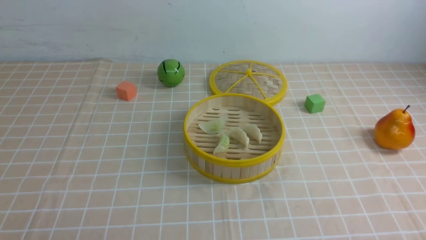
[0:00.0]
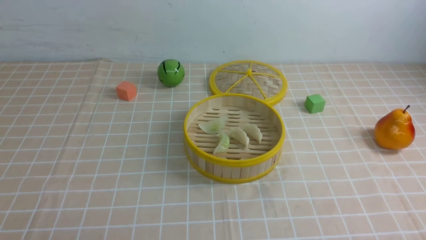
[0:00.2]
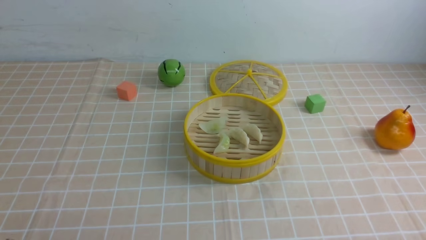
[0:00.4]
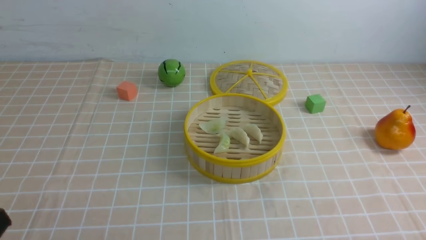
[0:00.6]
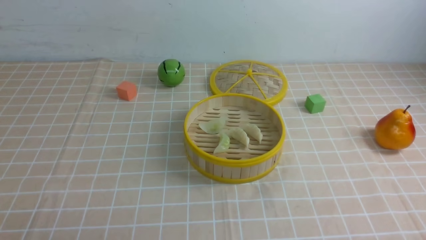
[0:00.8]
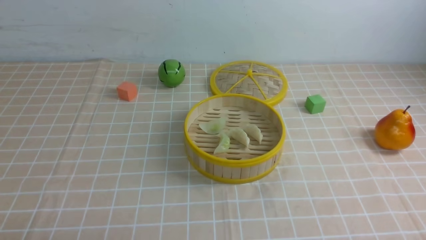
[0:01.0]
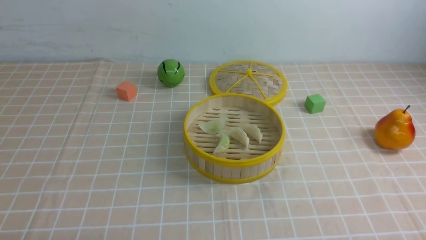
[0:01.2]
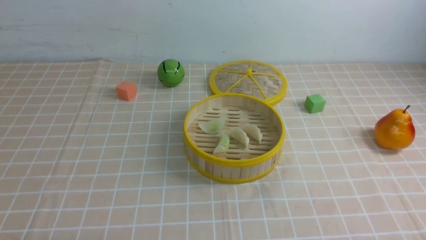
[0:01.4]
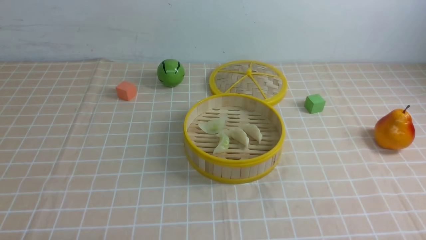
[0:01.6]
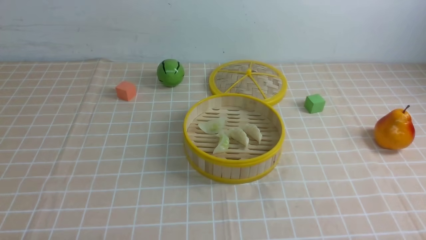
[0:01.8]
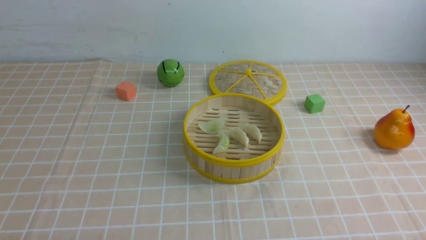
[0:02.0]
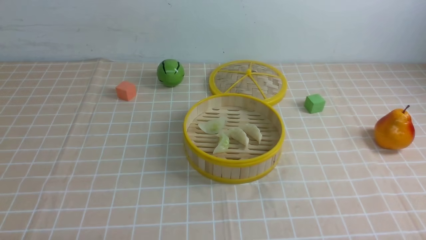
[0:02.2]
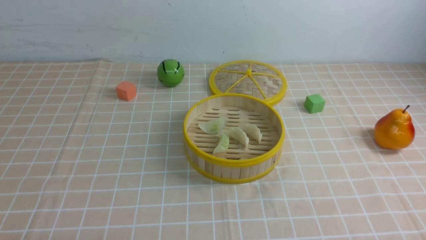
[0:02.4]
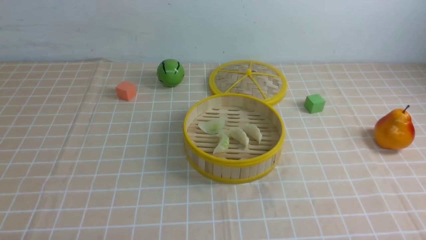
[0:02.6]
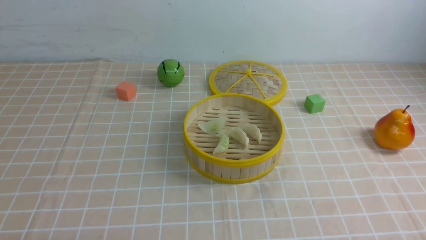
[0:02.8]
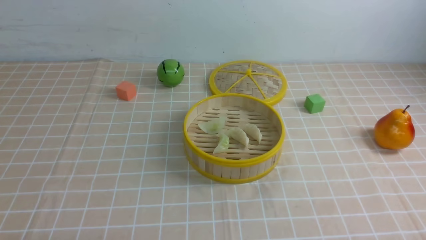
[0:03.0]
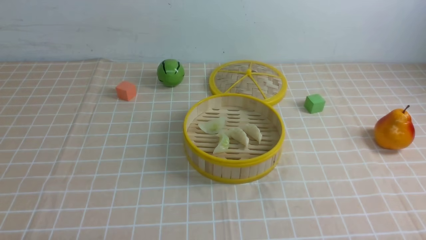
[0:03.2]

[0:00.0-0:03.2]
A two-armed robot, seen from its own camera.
Task of the whole recording: put the dumplings into the steamer on the table with the brown tablecloth.
0:01.6 to 0:03.2: Both grippers stay about where they are.

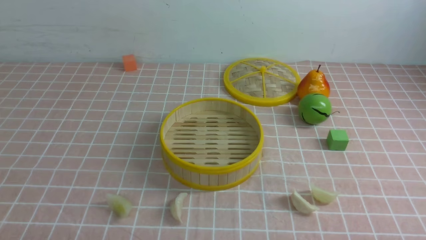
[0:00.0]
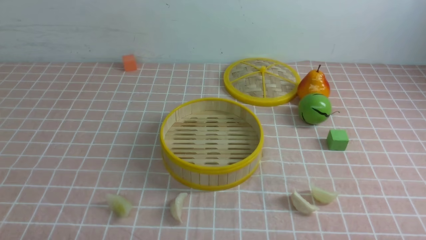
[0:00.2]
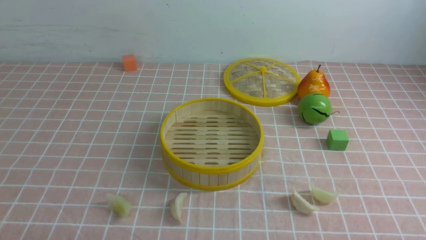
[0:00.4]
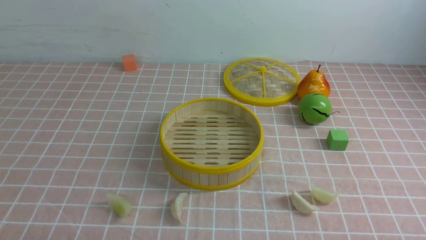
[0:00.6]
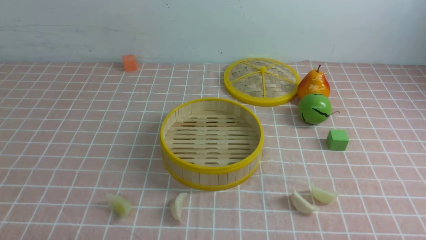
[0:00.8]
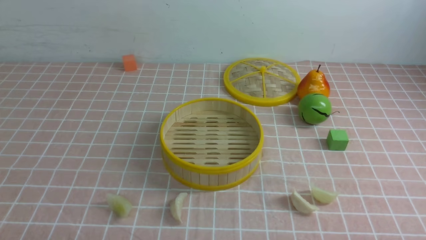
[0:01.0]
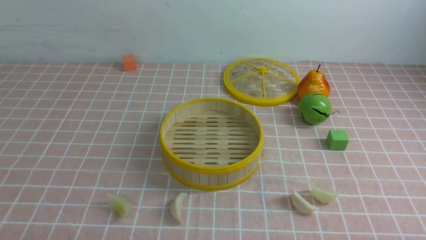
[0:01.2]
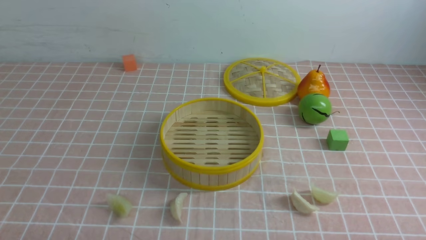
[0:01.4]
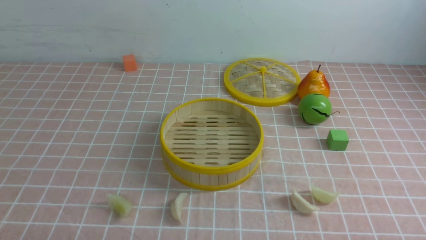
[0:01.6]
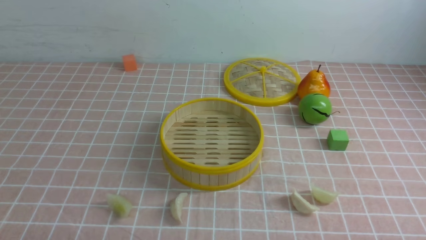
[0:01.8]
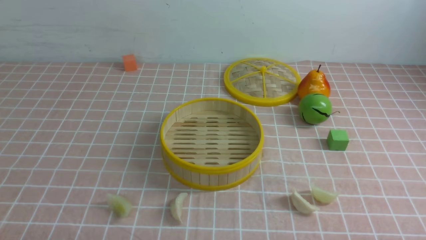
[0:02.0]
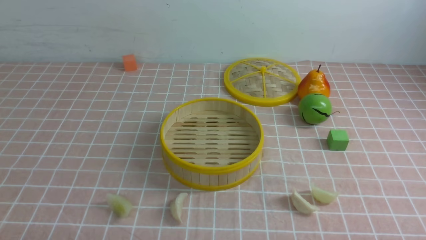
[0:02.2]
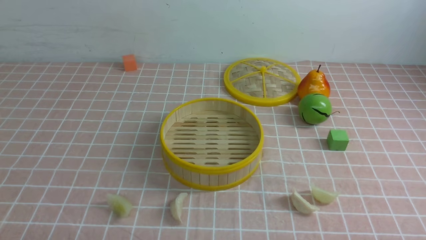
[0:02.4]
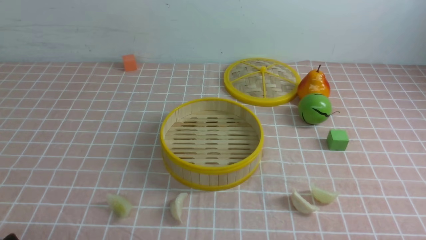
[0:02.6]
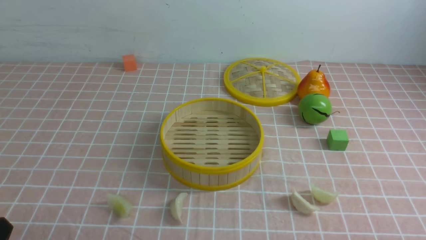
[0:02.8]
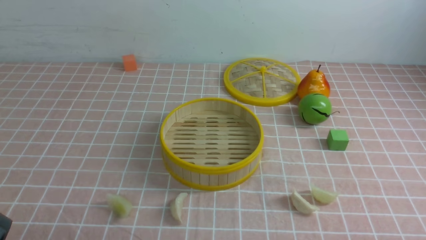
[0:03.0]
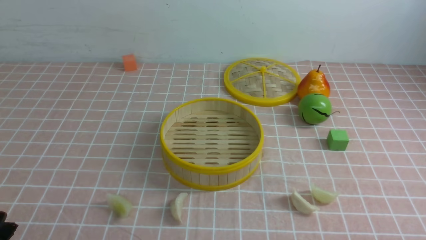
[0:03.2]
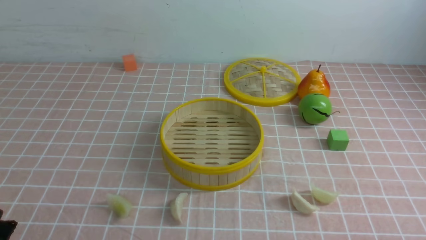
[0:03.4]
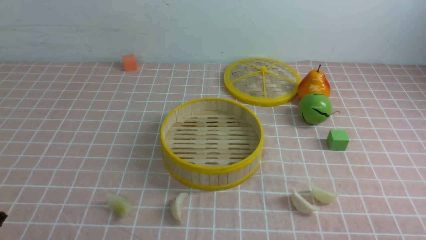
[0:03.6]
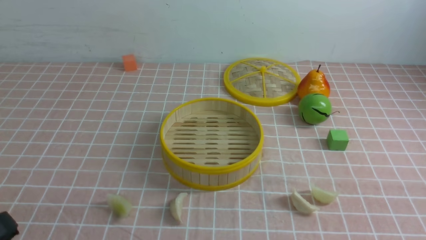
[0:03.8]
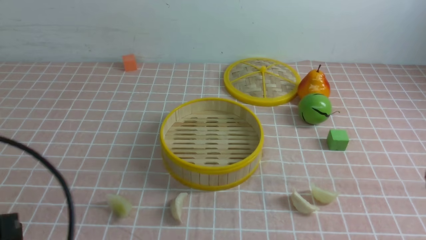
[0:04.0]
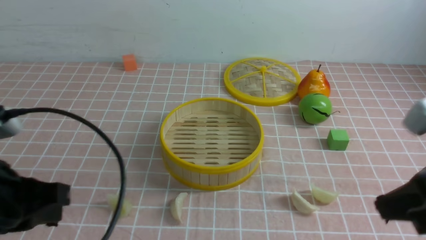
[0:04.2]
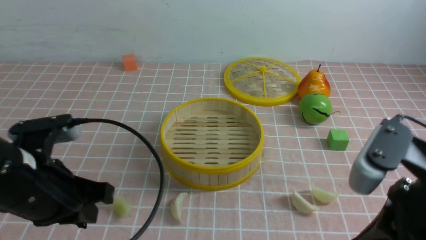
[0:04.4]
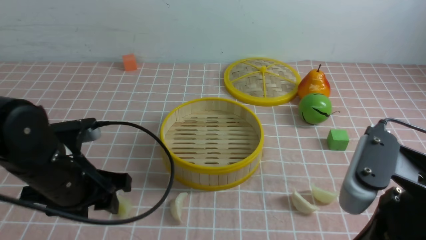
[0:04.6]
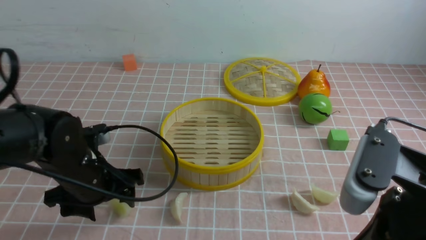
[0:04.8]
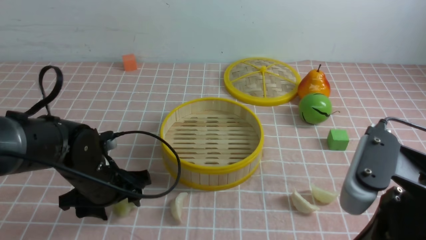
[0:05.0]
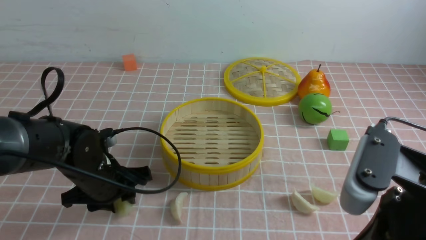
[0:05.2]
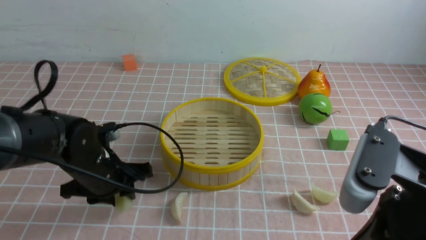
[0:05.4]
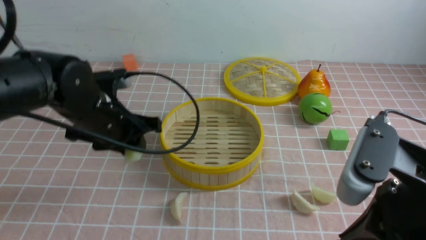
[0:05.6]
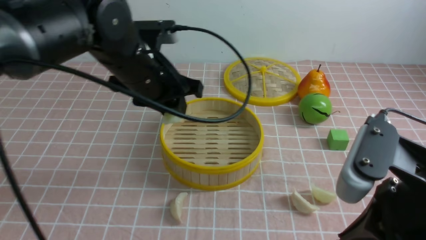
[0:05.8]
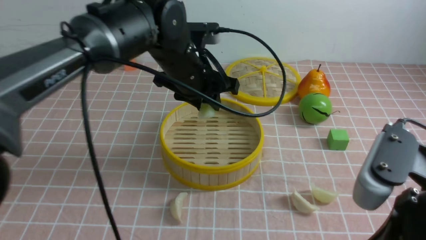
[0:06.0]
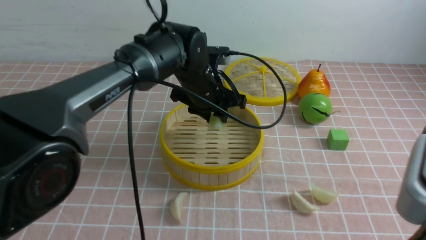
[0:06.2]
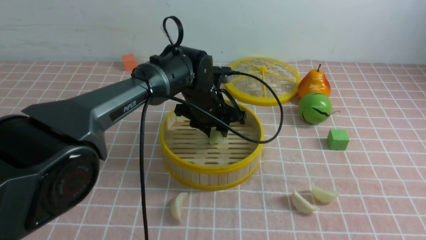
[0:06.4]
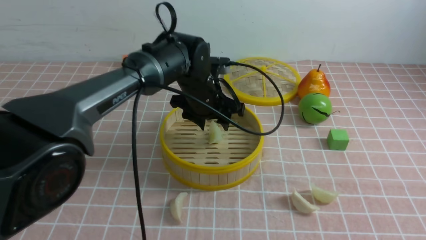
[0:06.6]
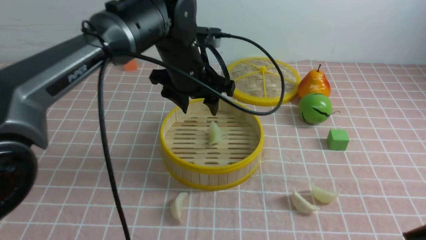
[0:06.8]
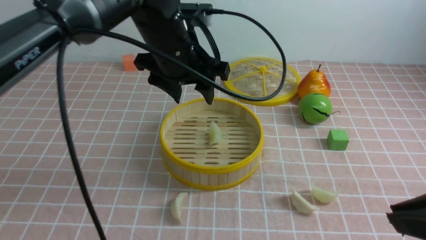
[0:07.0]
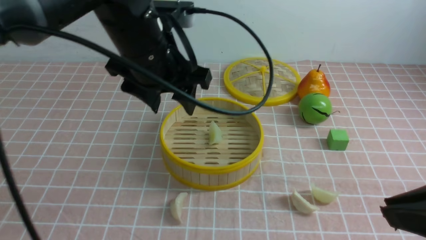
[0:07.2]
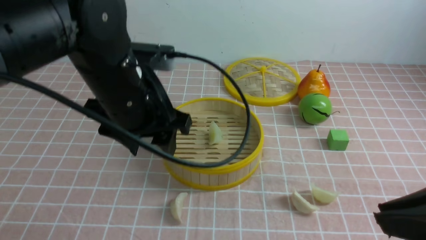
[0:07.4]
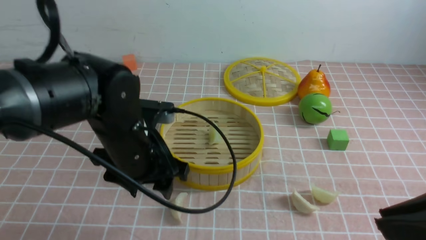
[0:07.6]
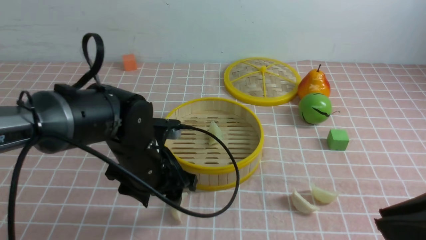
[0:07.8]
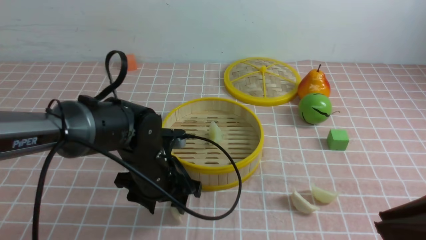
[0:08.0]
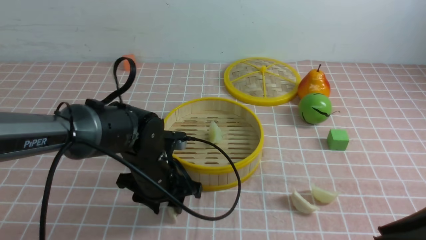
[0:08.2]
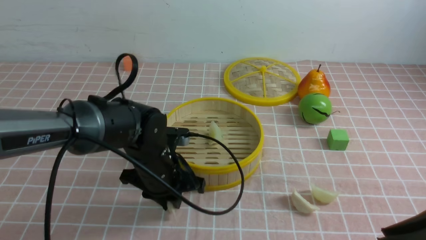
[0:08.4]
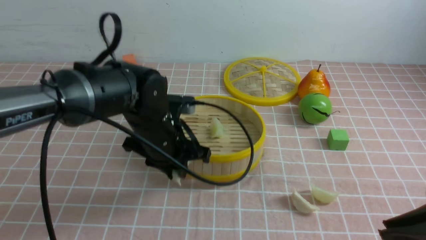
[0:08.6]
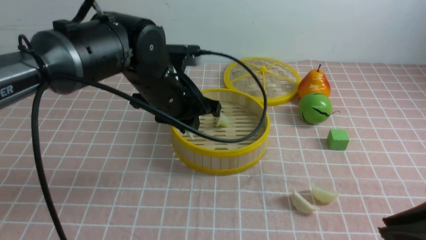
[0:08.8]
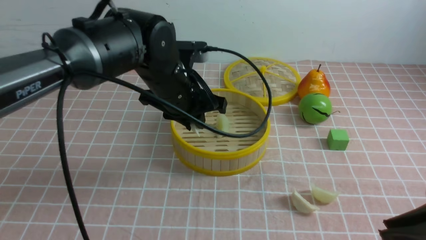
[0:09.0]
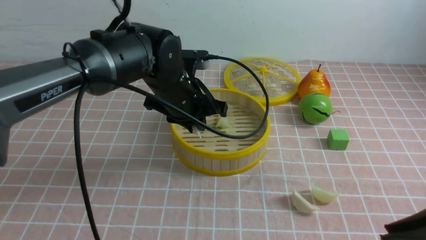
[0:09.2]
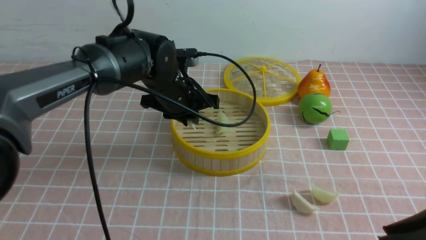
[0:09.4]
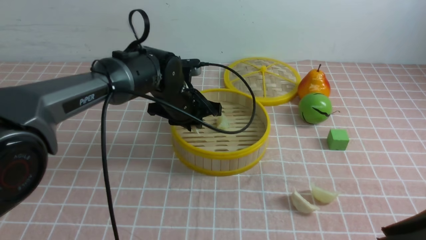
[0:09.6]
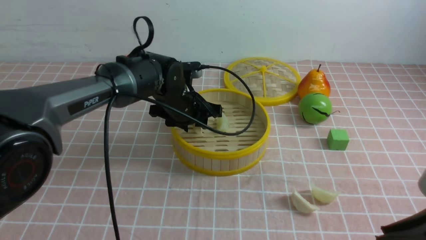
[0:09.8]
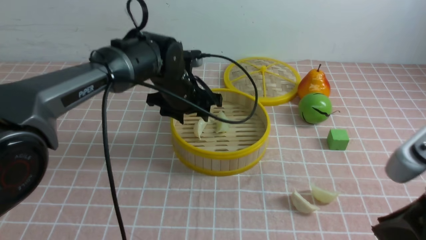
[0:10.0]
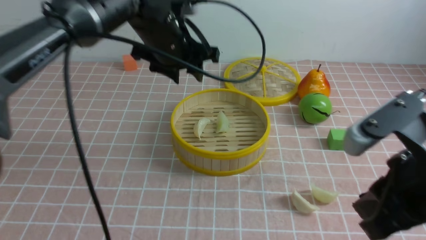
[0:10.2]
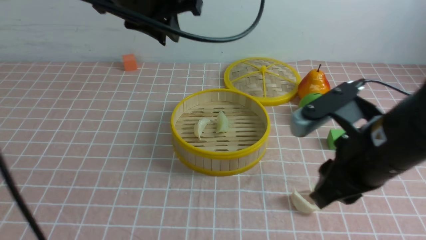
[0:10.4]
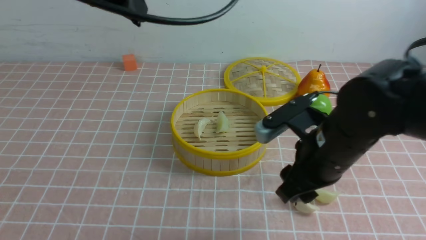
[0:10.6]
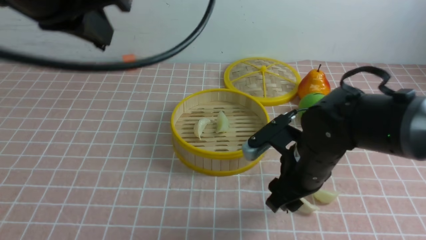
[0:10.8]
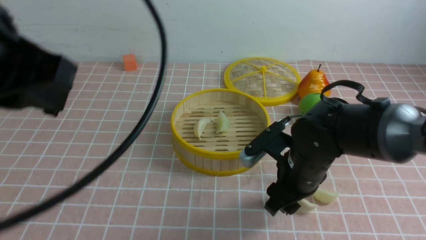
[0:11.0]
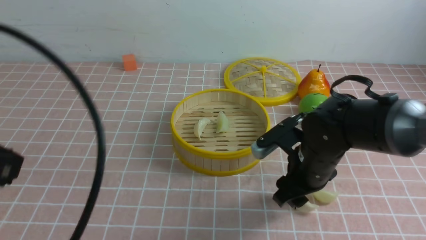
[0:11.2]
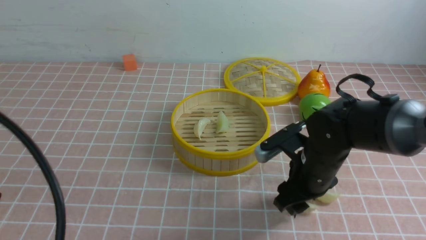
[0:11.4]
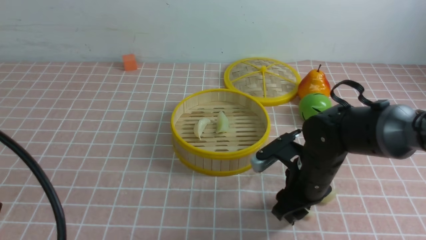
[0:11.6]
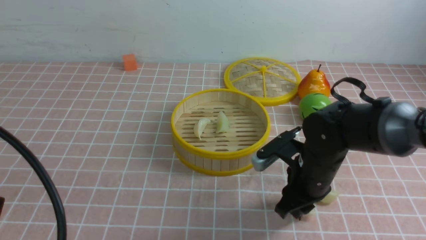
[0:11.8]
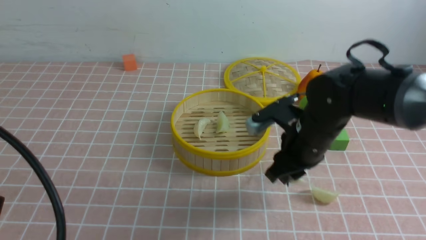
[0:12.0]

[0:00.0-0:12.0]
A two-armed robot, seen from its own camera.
Task of the whole recording: put the dumplings into the steamer on the table with the pink tablecloth.
Step, 0:00.0 to 0:05.2: use the left arm to grab a dumpling.
Step, 0:05.6 to 0:06.4: use the left arm to put the dumpling into the steamer.
Step, 0:06.6 to 0:08.2: use the left arm to grab a dumpling.
Step, 0:08.6 to 0:09.8: use the left arm to put the dumpling into the steamer.
Step, 0:10.0 to 0:11.6: use the right arm to grab a dumpling.
0:03.0 to 0:04.4: The left gripper moves forward, upward and to the right, approximately 20 cm, and closes, then opens again. Meanwhile the right gripper is displaced upward, forward and to the left by some 20 cm, and closes its fingers.
0:04.4 to 0:06.0: The left gripper goes about 25 cm forward and to the right, and opens, then closes once more.
0:06.0 to 0:07.6: The left gripper is displaced backward and to the left by roughly 10 cm, and opens its fingers. Meanwhile the right gripper ends up about 5 cm from where it was.
0:07.6 to 0:09.0: The left gripper travels forward by approximately 10 cm, reaches some 10 cm downward, then returns, and closes its fingers.
0:09.0 to 0:10.4: The left gripper goes some 15 cm upward, and opens and closes again. Meanwhile the right gripper moves forward and to the left, about 15 cm.
0:10.4 to 0:12.0: The right gripper shifts roughly 15 cm forward and downward, and opens, then closes again. The left gripper moves backward and to the left, approximately 30 cm.

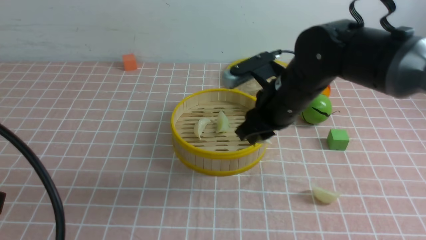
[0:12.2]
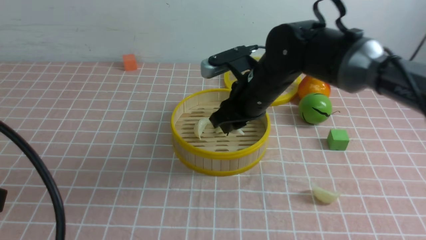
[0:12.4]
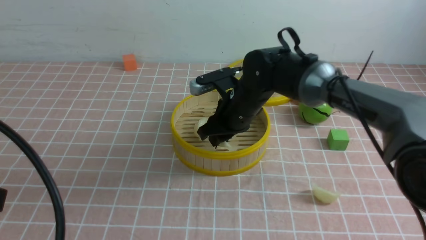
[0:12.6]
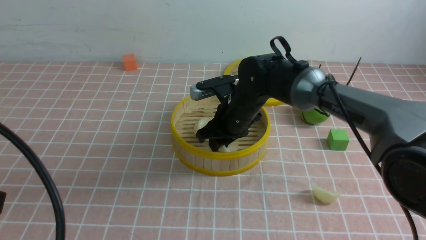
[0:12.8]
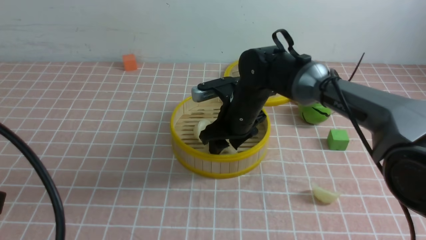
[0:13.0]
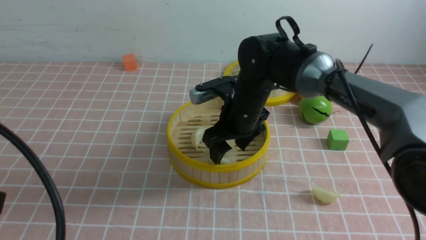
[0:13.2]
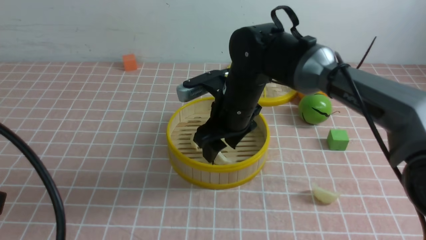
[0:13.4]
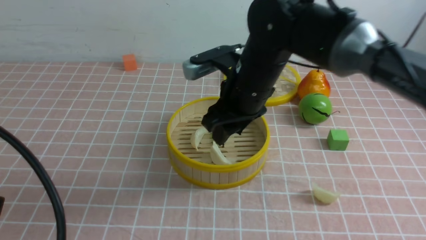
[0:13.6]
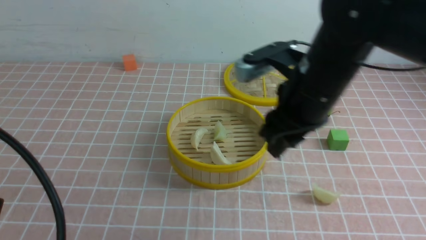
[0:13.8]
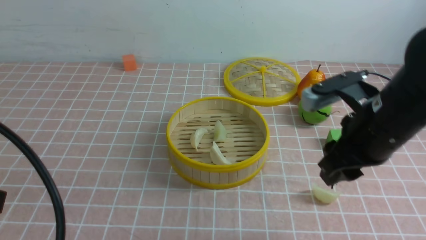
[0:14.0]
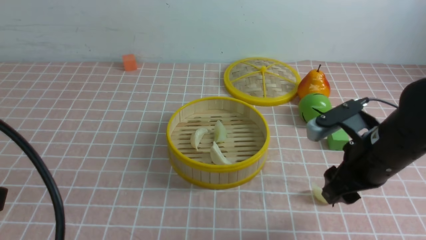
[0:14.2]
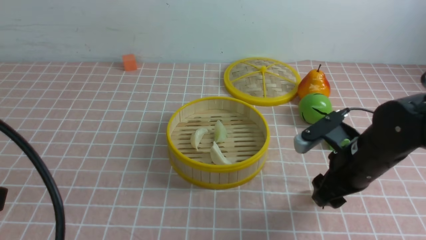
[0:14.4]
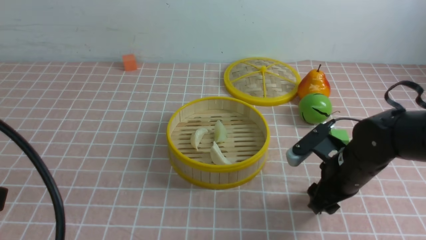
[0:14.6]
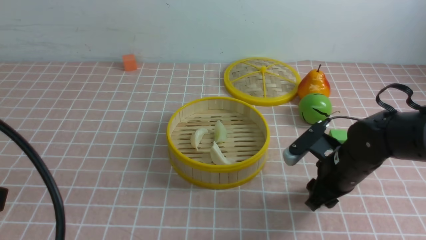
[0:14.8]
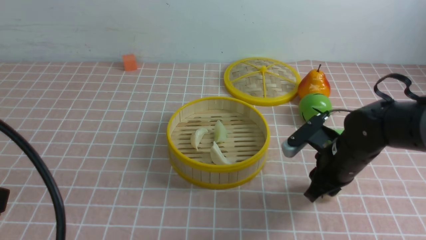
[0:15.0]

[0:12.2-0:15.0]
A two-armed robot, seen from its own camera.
Task of the whole recording: put the dumplings into the steamer on the table with the pink tablecloth.
Step, 0:12.2 to 0:12.8: use the right arm to put the dumpling into the steamer.
Step, 0:13.2 to 0:15.0: use the right arm to grab a dumpling.
0:13.6 to 0:15.0: The right gripper goes approximately 20 cm to the right and downward.
